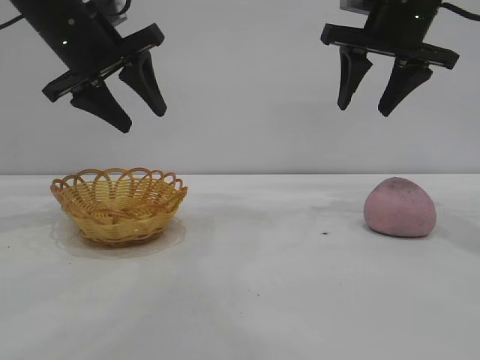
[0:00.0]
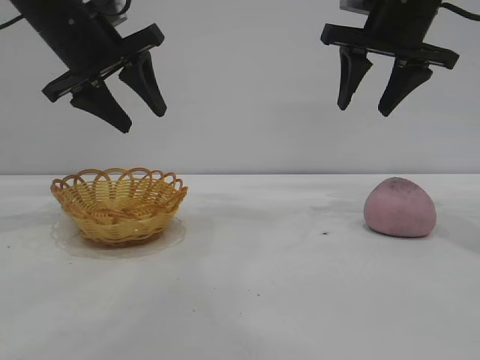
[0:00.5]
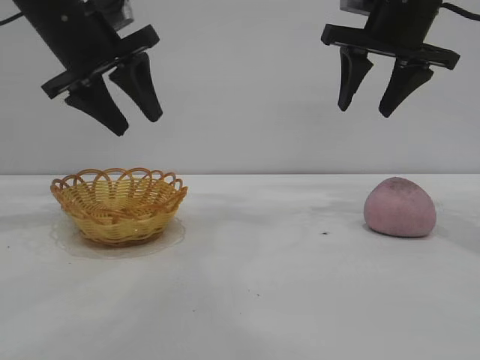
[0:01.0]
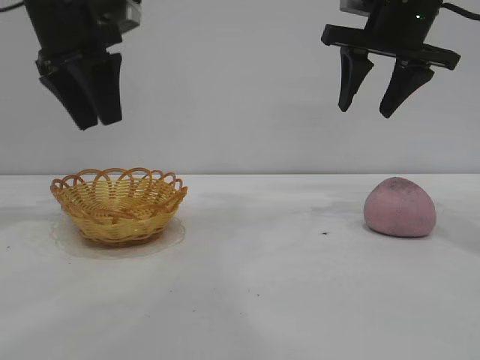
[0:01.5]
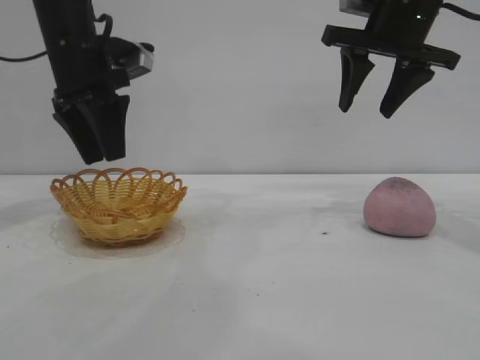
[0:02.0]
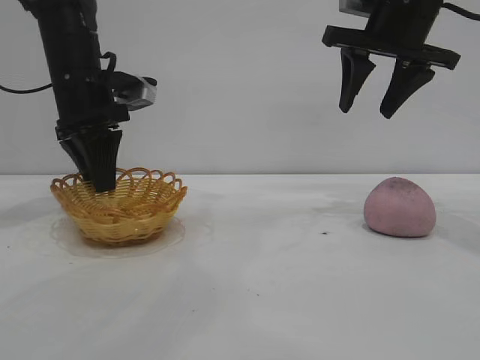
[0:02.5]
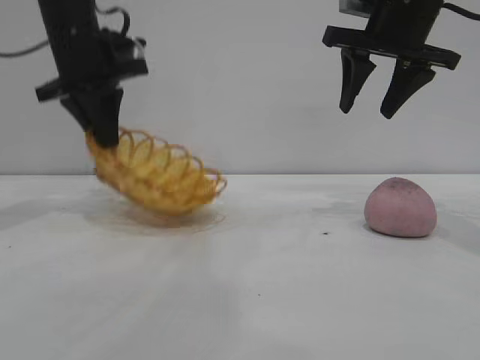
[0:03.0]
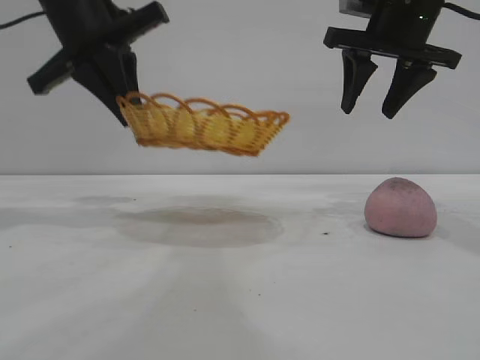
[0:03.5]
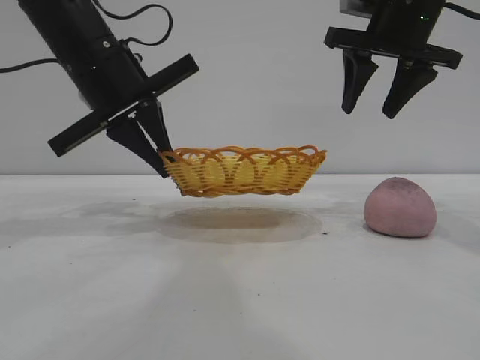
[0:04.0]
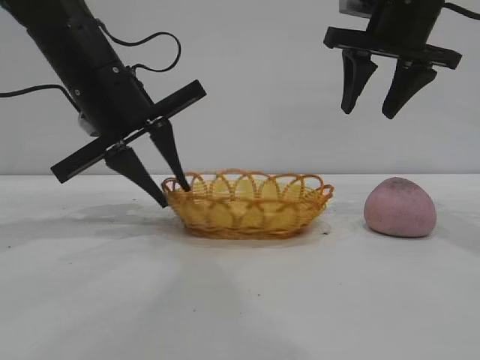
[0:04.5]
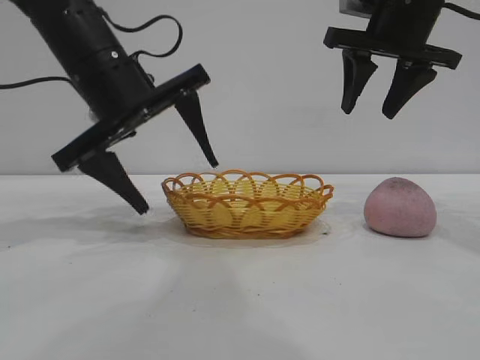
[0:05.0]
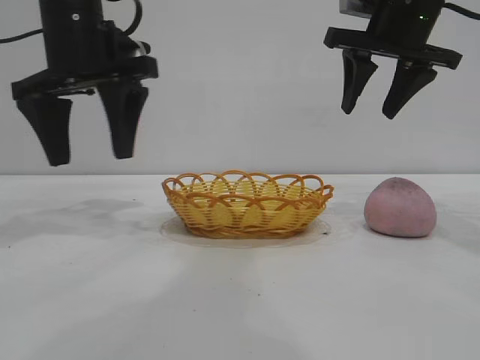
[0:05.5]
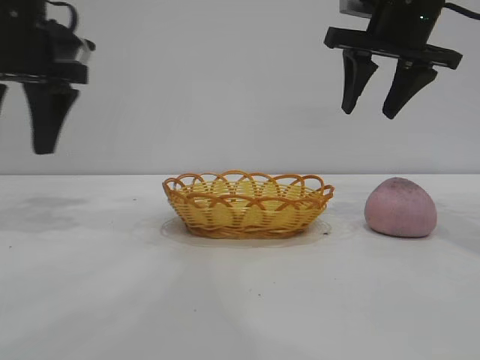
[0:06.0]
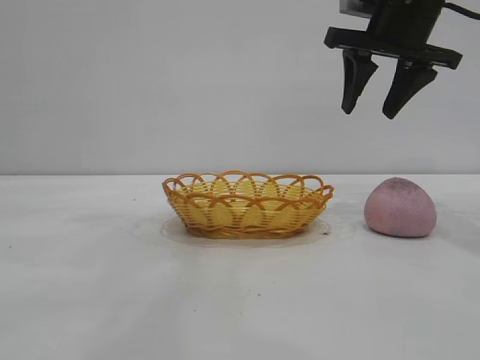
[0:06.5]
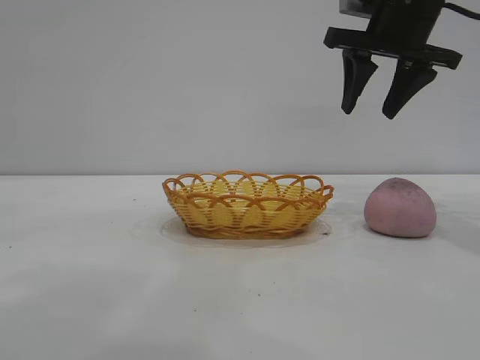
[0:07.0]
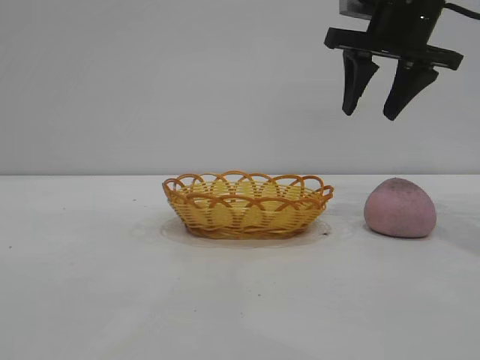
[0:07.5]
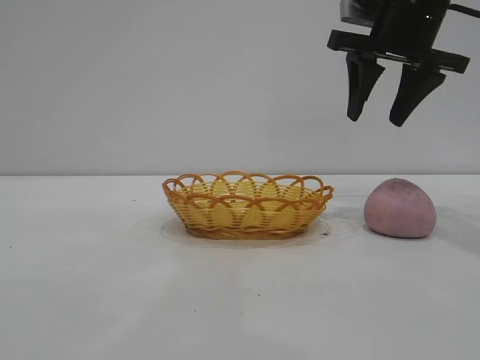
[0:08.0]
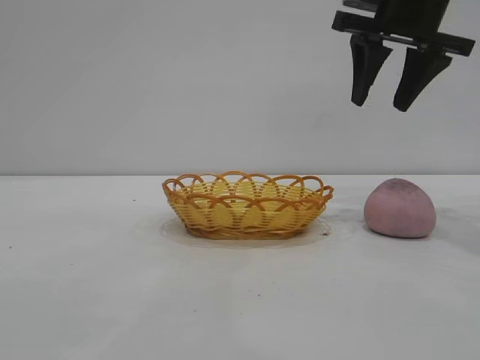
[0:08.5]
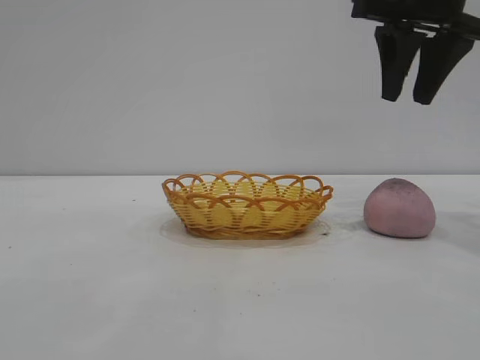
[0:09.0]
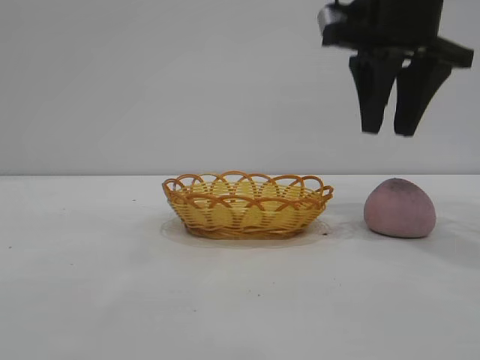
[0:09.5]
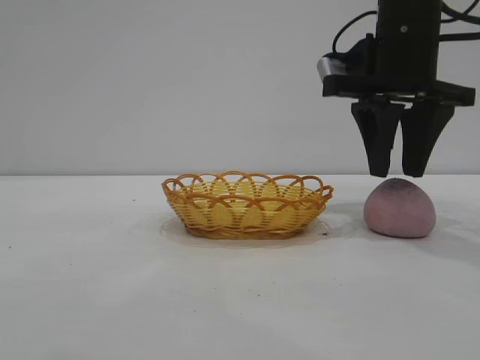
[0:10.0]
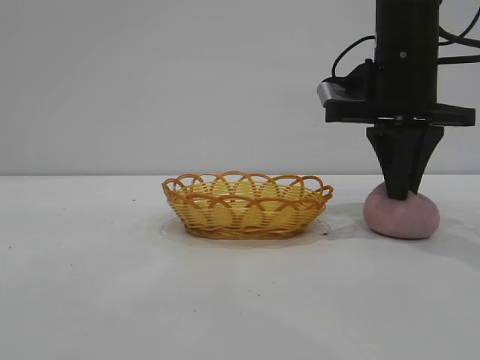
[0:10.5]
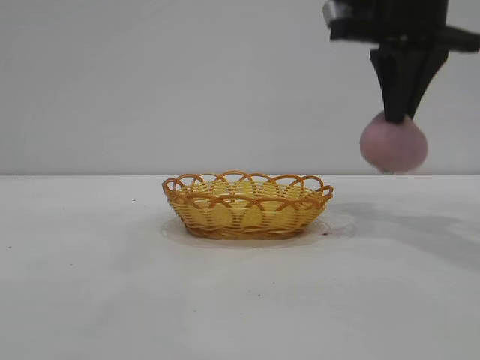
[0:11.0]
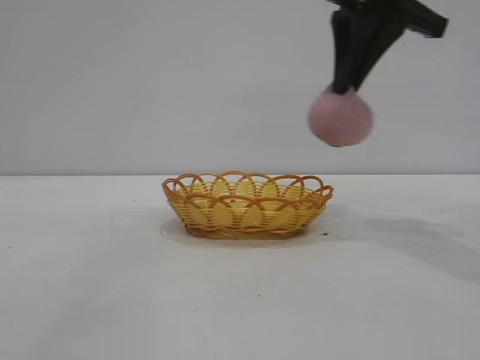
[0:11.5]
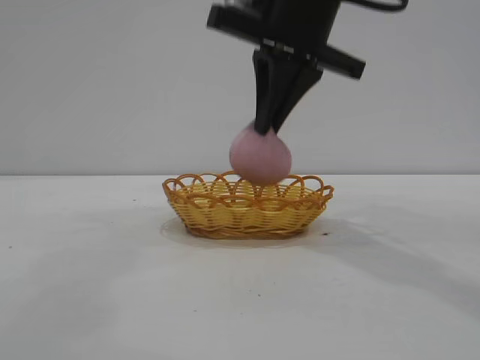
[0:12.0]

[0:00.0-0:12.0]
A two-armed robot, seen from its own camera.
Task of the whole recording: pick up the peach and put it into the basket.
Step, 0:00.0 to 0:05.0: Move the basket to the center of view.
Step, 0:05.5 to 0:10.5: Pick up the peach.
